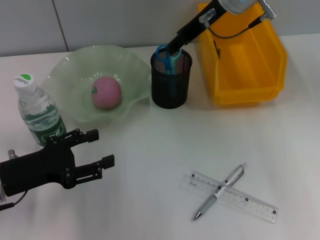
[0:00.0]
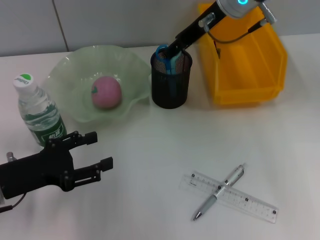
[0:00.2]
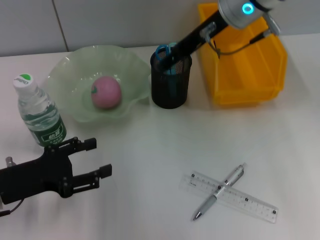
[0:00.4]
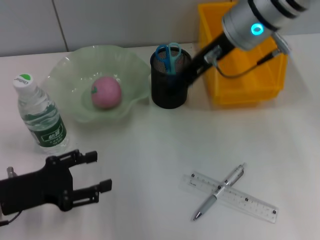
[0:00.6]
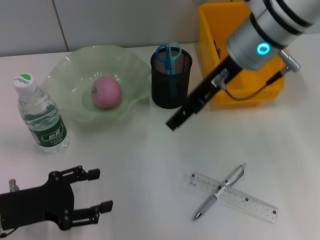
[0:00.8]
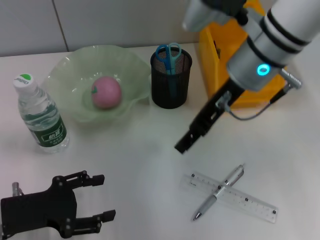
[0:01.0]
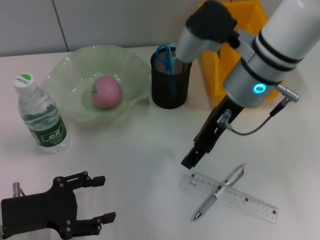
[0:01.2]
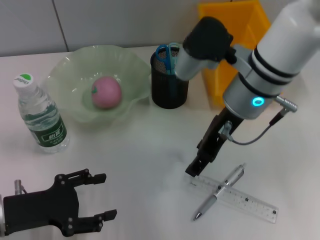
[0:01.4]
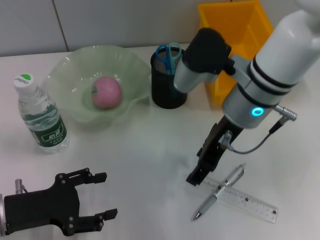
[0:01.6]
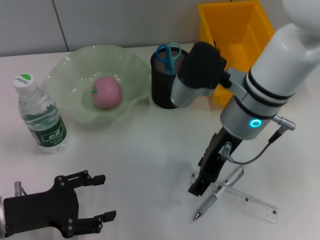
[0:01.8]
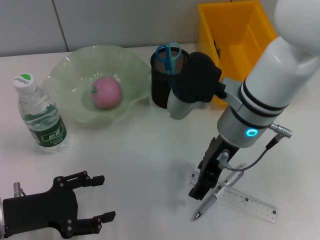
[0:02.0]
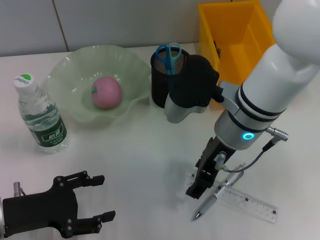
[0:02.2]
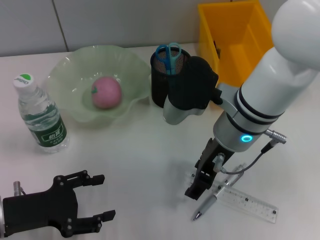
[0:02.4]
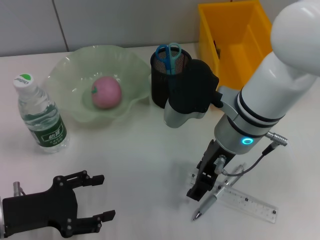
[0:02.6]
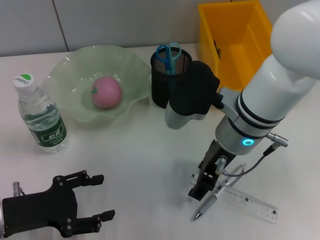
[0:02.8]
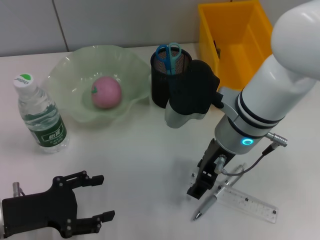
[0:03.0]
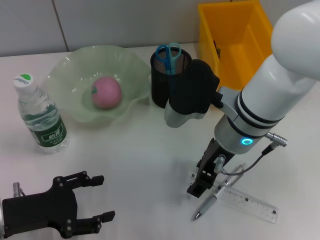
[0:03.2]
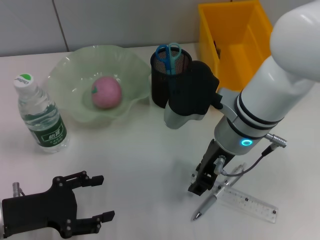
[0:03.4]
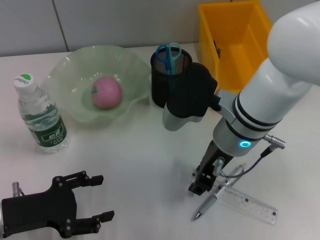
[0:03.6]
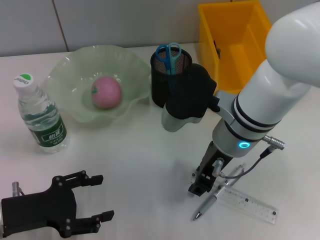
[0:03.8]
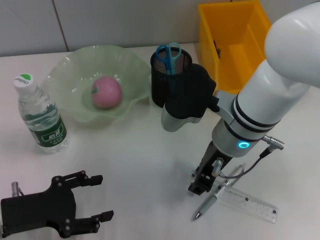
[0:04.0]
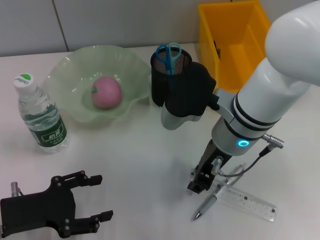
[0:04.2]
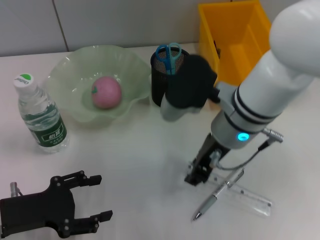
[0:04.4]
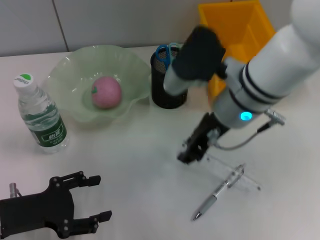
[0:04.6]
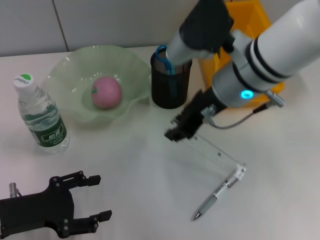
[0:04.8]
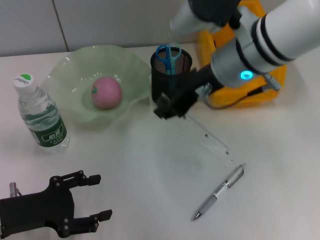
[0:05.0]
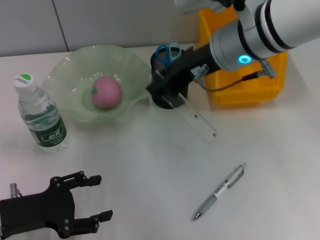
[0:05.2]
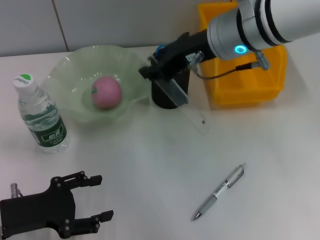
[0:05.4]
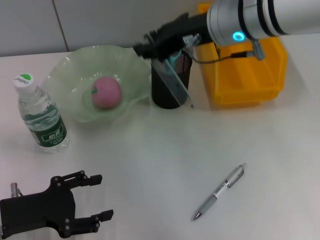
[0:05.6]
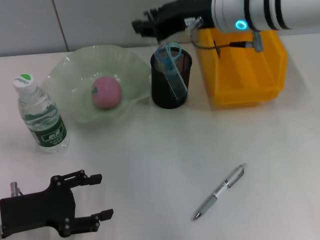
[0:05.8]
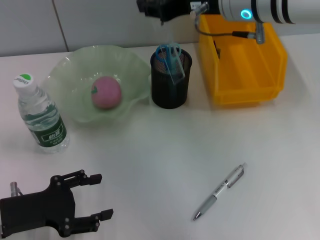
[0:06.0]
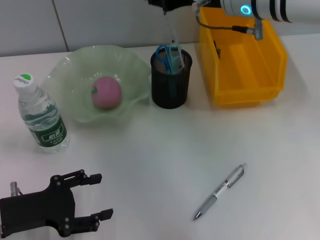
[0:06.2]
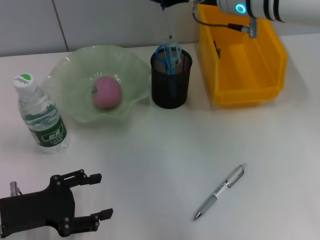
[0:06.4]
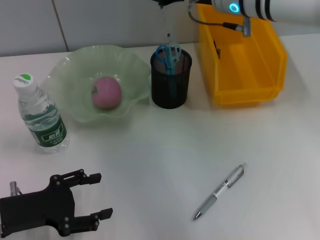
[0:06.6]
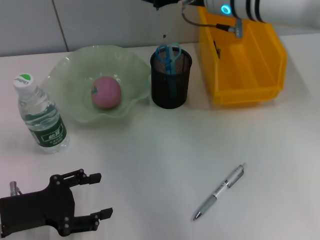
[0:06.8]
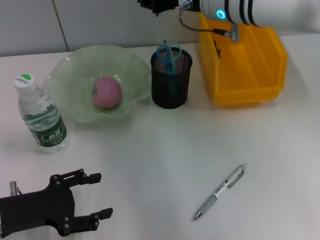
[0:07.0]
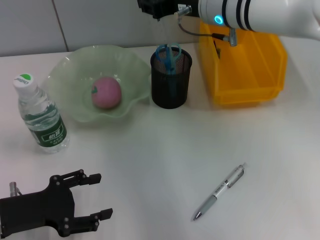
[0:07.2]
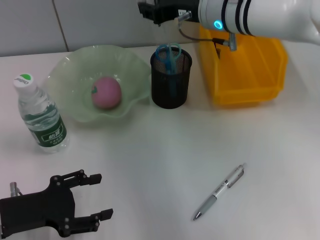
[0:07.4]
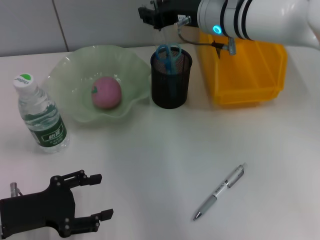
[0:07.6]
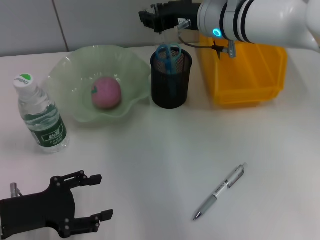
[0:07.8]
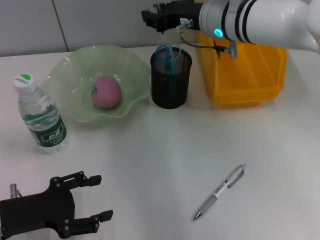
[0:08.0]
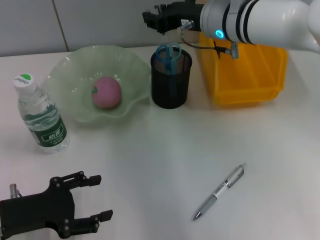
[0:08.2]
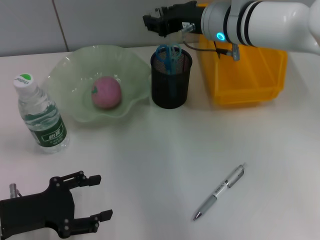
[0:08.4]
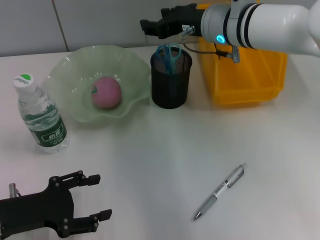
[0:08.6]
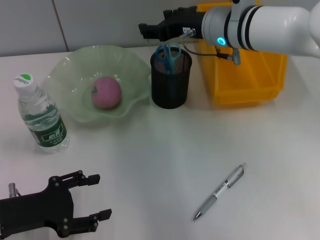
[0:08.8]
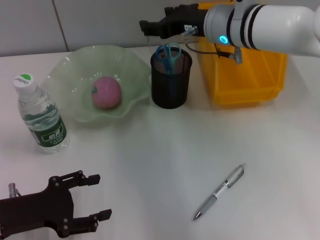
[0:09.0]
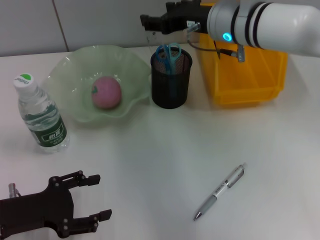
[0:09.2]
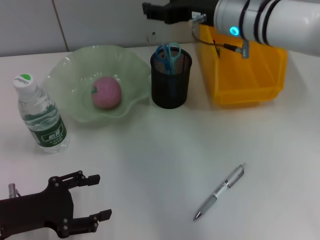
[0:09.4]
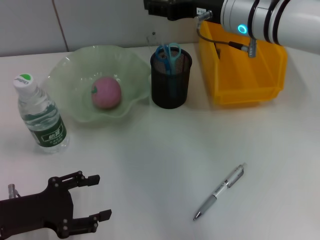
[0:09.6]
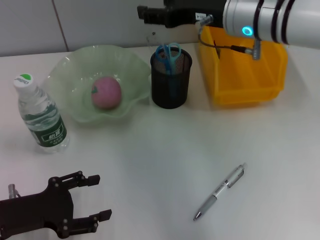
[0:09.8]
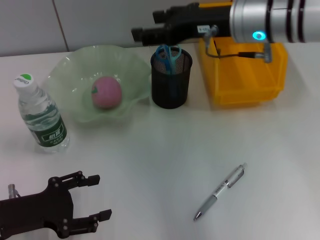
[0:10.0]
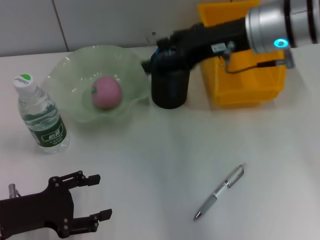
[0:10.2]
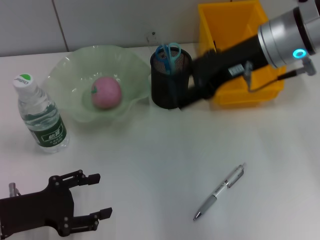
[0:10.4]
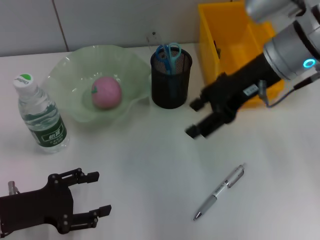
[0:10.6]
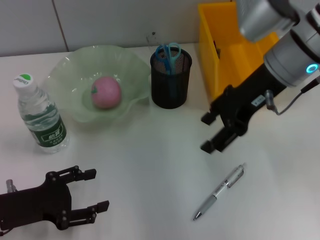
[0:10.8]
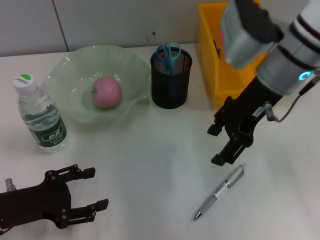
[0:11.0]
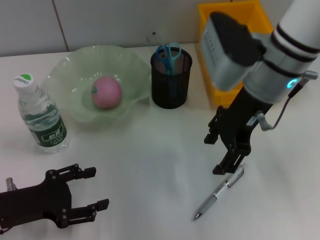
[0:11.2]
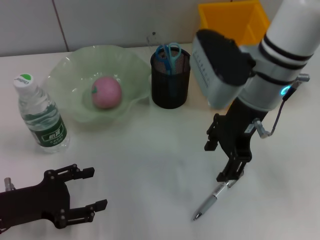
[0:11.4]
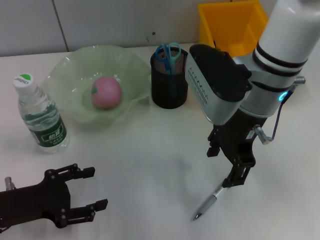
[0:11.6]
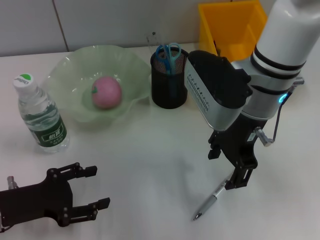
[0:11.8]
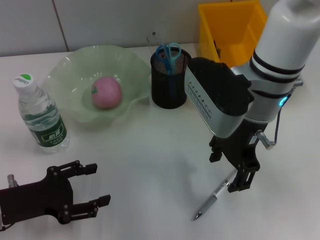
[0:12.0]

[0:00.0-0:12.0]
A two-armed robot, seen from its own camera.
Step, 0:00.0 to 0:04.0: Grab the ruler with the right hand.
Step, 0:04.2 to 0:08.8: Place the ruler into the pen holder with the right hand.
0:00.0 to 0:01.6: The right gripper heads backward and downward, covering approximately 15 cm.
0:01.6 to 0:03.0: There are only small adjustments of the grippers.
0:03.0 to 0:04.4: The right gripper closes.
0:04.4 to 0:06.0: The right gripper travels upward and forward by roughly 10 cm.
0:06.0 to 0:07.6: The right gripper travels downward by roughly 5 cm.
0:07.6 to 0:09.0: The right gripper opens.
0:09.0 to 0:10.4: The right gripper moves backward and to the right, approximately 10 cm.
0:10.4 to 0:12.0: The right gripper shifts some 5 cm to the left.

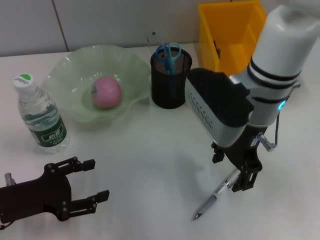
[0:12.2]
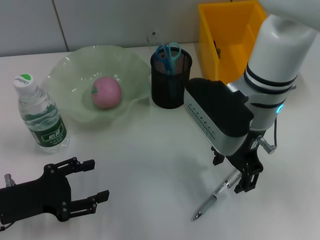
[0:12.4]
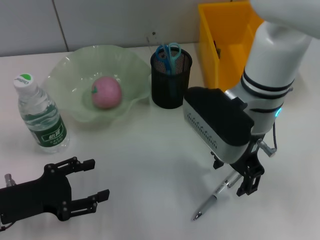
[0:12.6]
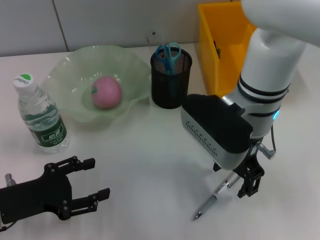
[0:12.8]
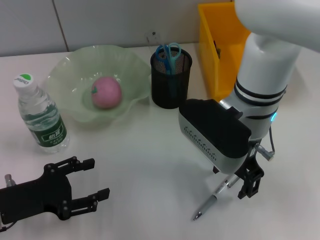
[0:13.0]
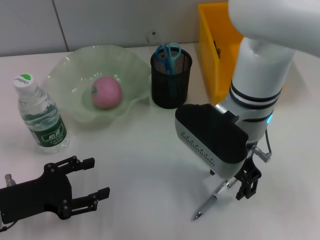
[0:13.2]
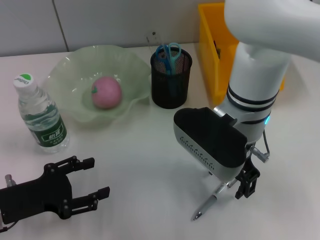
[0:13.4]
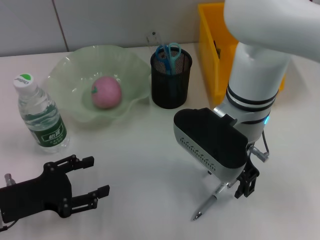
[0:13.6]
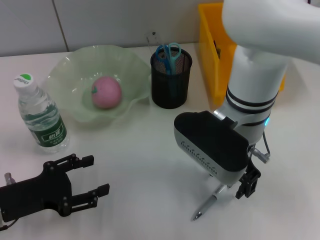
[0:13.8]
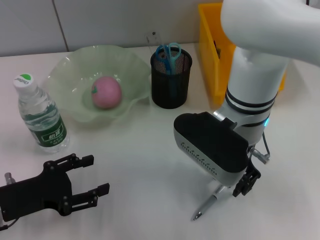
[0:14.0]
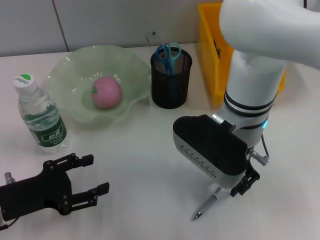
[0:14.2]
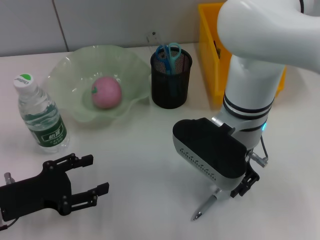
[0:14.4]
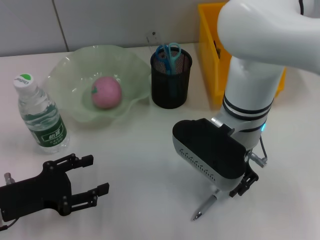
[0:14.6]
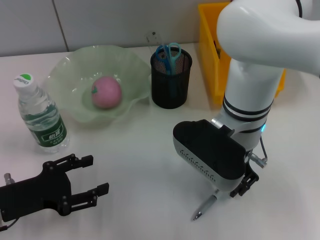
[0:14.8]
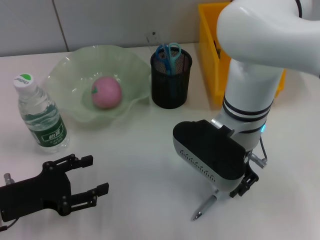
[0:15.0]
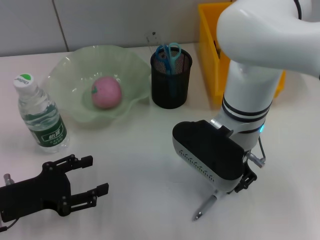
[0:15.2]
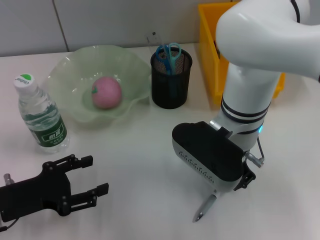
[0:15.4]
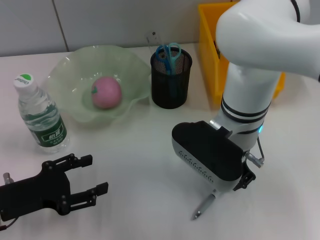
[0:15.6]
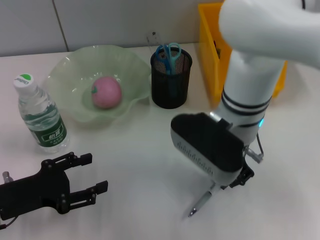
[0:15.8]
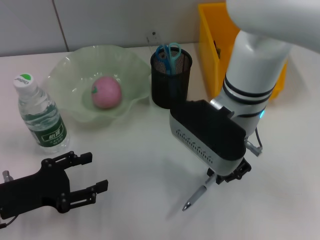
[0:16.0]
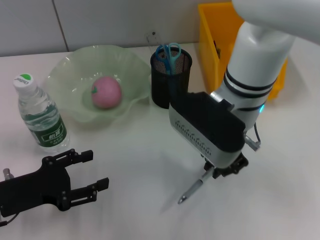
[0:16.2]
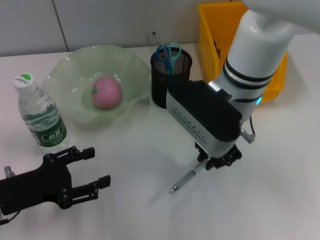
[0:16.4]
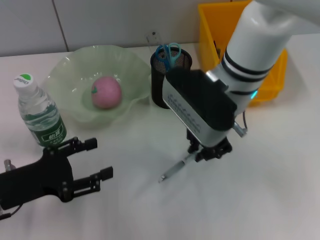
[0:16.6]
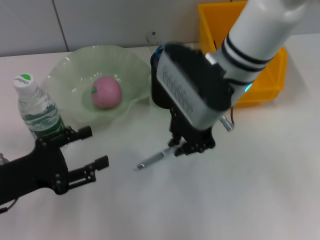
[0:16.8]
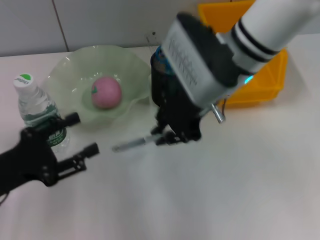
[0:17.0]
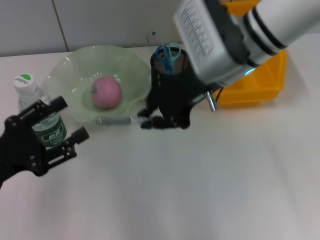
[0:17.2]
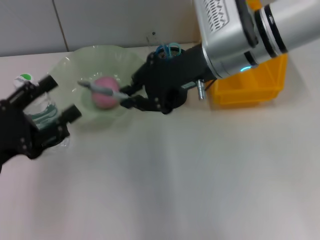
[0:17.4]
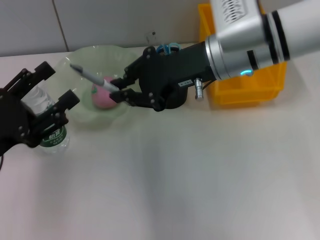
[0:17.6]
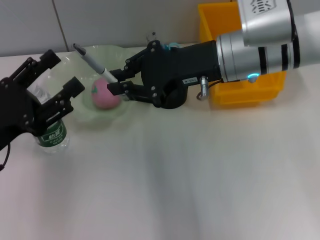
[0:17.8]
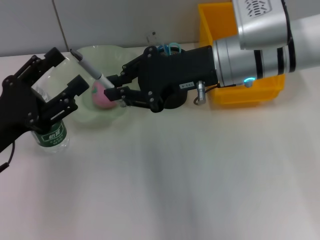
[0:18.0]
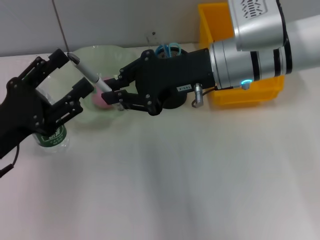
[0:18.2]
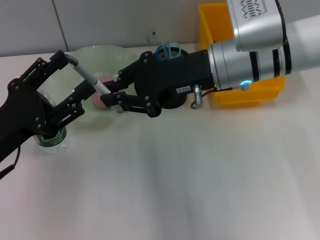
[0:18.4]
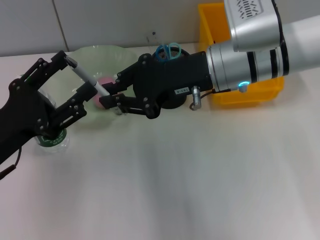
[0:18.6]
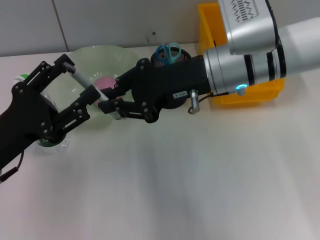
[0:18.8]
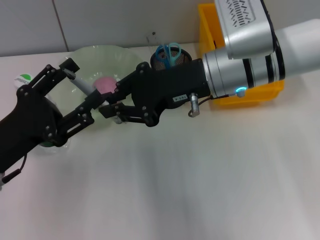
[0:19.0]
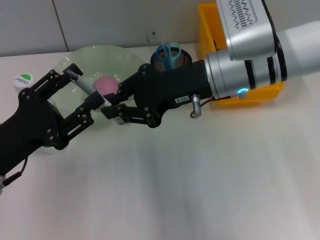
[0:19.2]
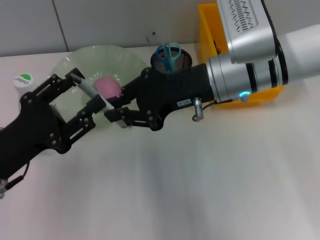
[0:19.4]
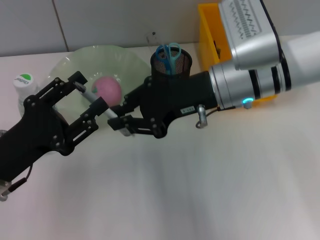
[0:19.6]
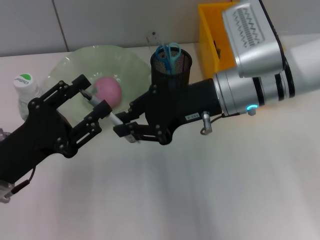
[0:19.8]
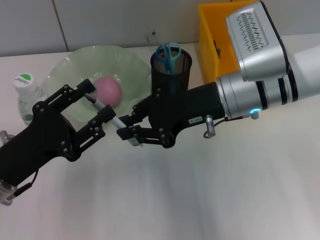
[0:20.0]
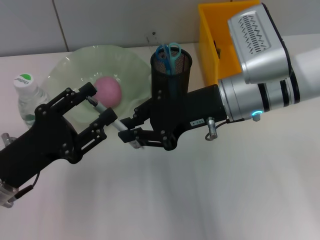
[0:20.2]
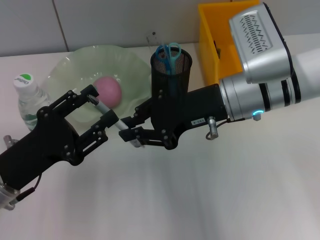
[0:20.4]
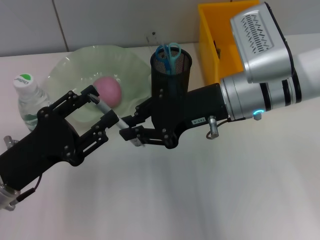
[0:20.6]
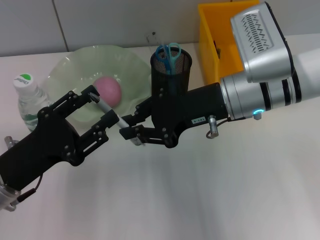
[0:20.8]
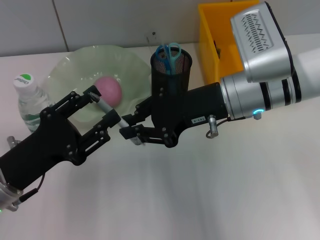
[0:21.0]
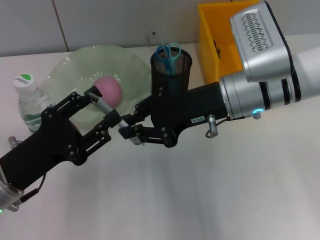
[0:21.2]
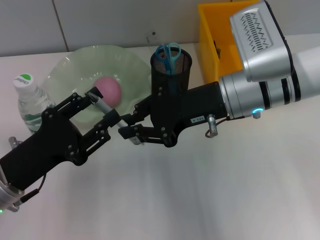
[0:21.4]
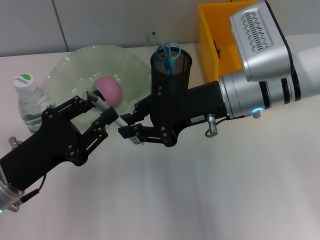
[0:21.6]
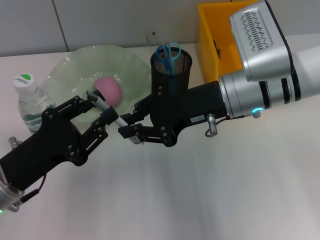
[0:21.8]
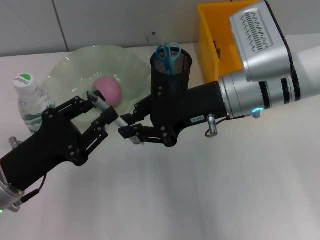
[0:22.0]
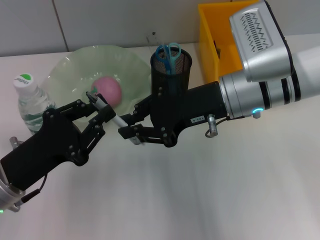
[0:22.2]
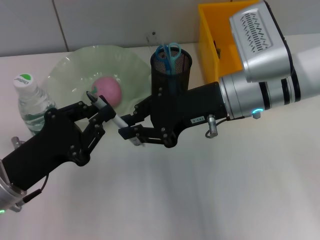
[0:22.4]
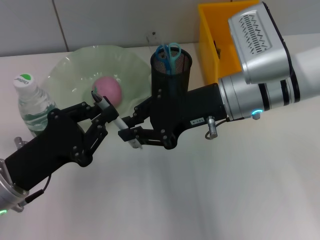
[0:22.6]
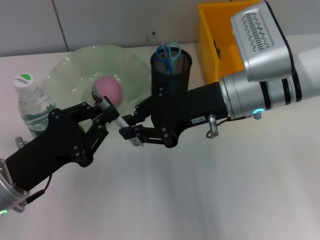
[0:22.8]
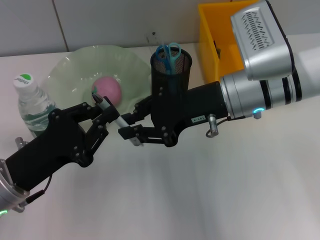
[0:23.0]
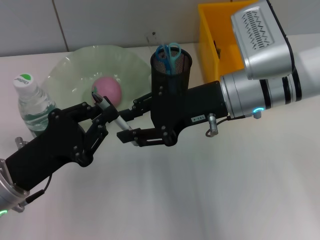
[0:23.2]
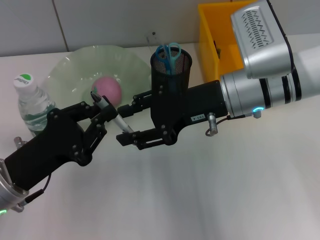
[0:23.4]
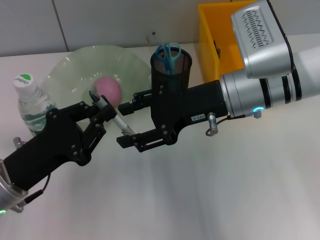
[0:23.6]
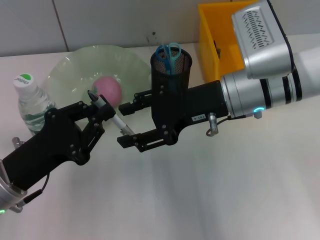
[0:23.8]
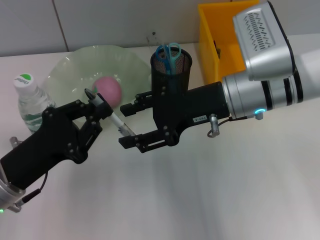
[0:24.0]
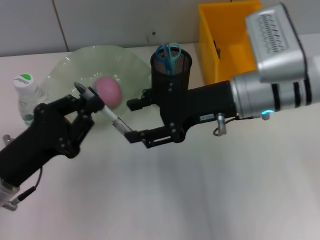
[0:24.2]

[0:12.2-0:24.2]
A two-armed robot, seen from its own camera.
Step, 0:12.2 to 0:15.4: Grab the gray spring-action pen with the right hand.
Step, 0:15.6 to 0:23.2: Pass the gray spring-action pen from the right hand to the left hand.
0:12.2 to 0:13.8: The grippers move only a little.
0:13.8 to 0:15.2: The right gripper closes its fingers.
0:15.2 to 0:16.6: The right gripper moves roughly 5 cm.
0:19.8 to 0:21.2: There are only small adjustments of the grippers.
0:21.2 to 0:22.6: The left gripper closes.
0:22.6 to 0:24.2: The right gripper opens its fingers.
